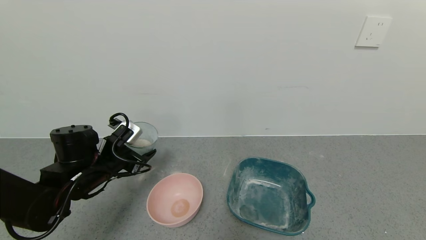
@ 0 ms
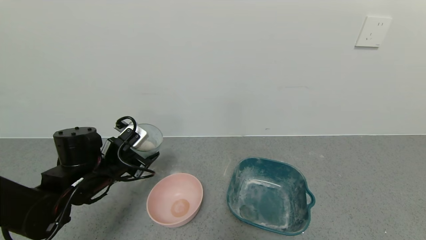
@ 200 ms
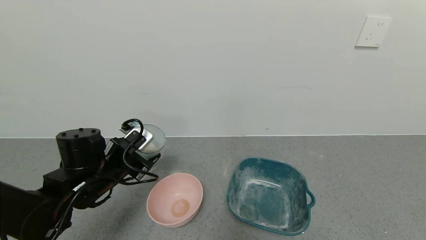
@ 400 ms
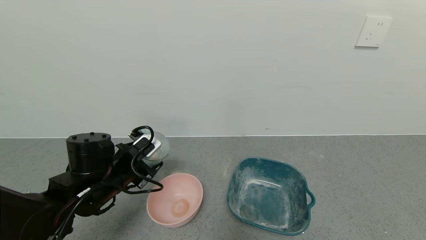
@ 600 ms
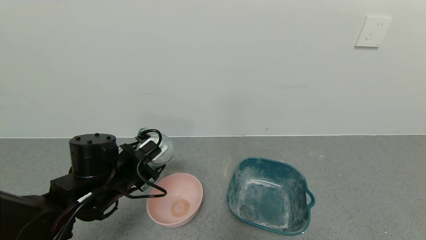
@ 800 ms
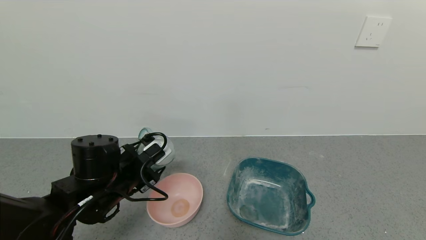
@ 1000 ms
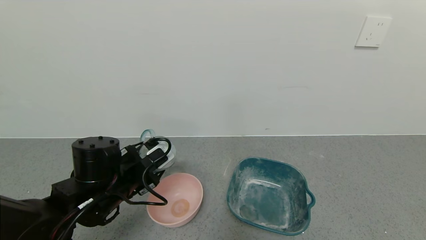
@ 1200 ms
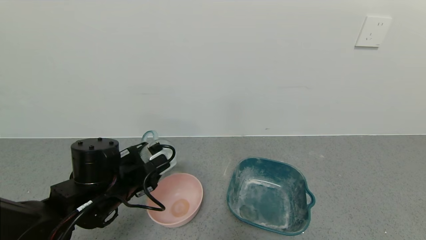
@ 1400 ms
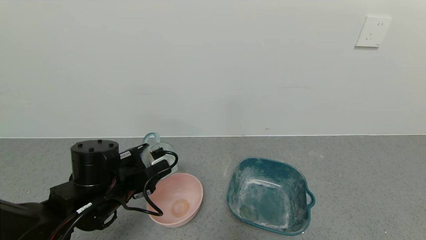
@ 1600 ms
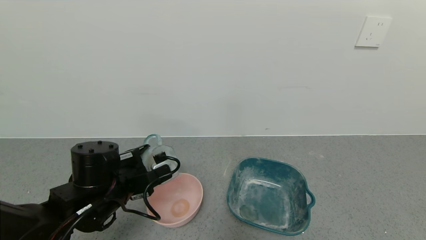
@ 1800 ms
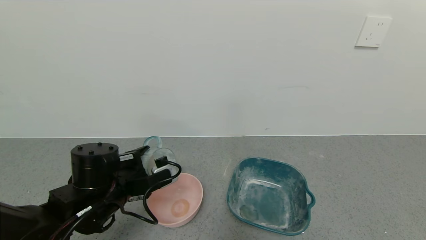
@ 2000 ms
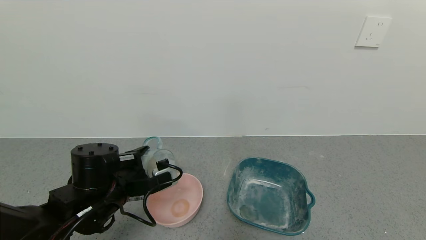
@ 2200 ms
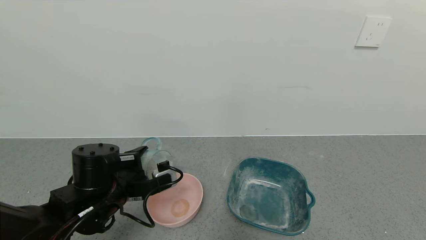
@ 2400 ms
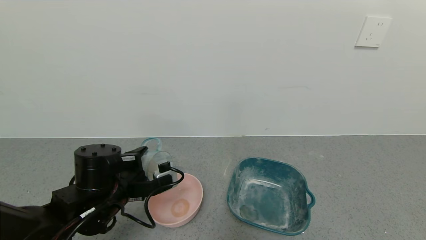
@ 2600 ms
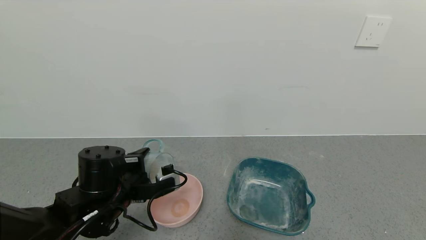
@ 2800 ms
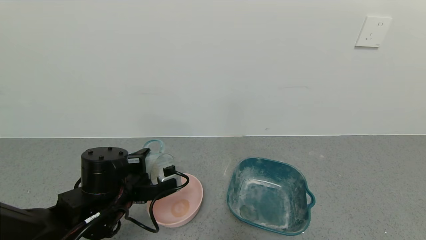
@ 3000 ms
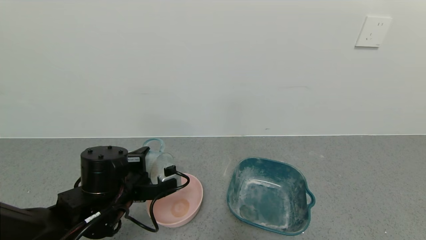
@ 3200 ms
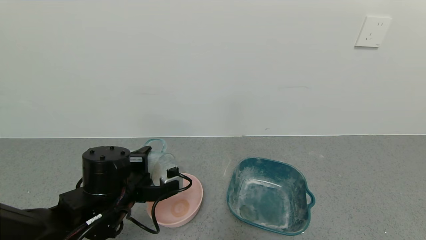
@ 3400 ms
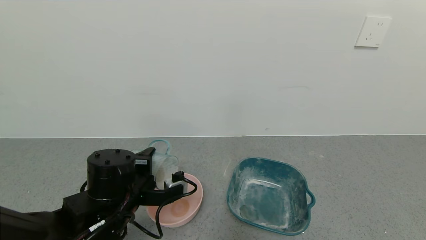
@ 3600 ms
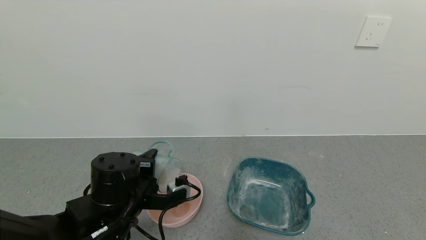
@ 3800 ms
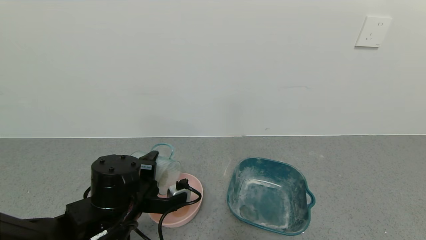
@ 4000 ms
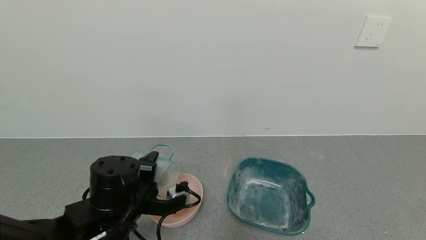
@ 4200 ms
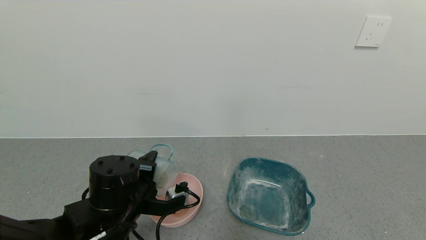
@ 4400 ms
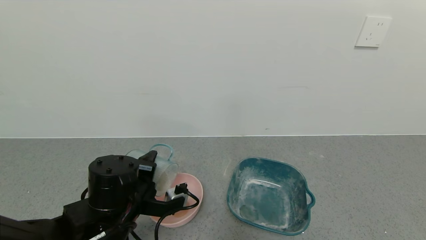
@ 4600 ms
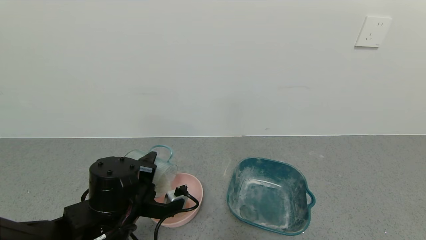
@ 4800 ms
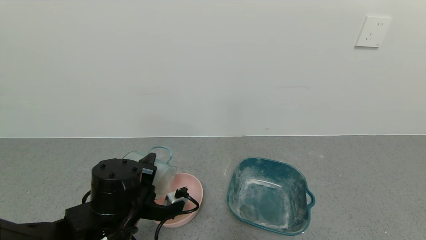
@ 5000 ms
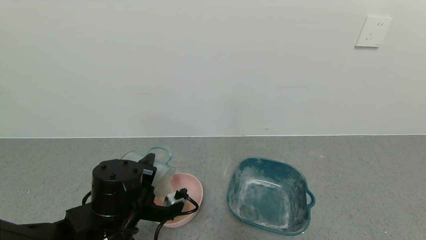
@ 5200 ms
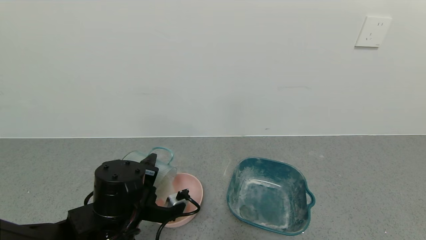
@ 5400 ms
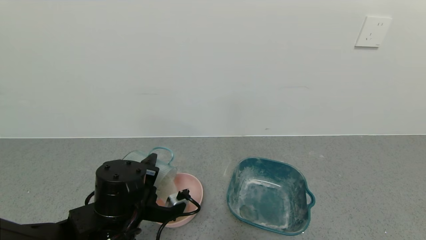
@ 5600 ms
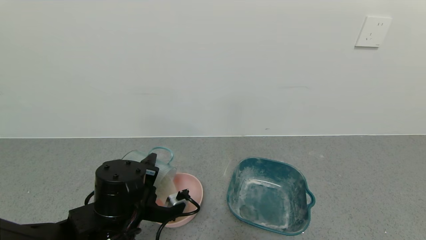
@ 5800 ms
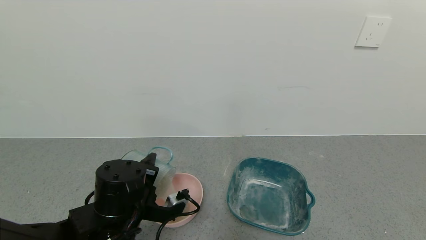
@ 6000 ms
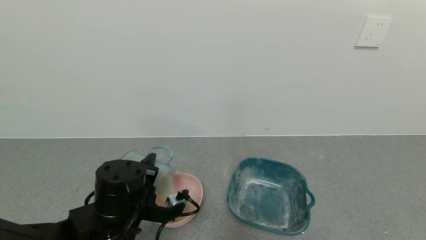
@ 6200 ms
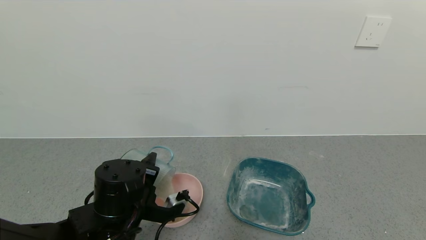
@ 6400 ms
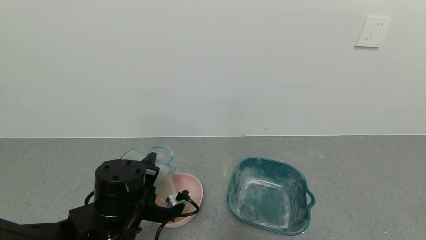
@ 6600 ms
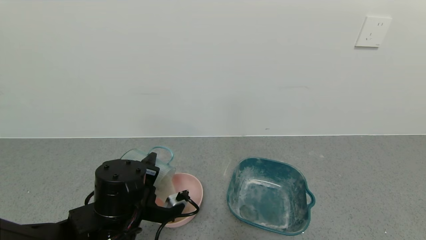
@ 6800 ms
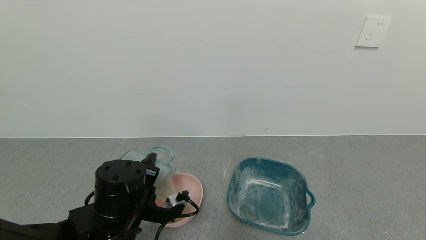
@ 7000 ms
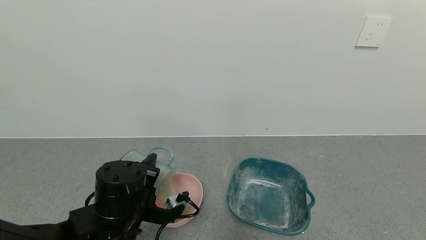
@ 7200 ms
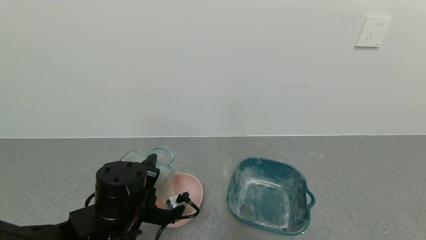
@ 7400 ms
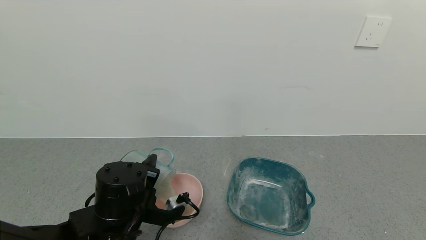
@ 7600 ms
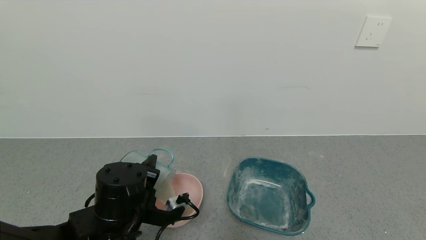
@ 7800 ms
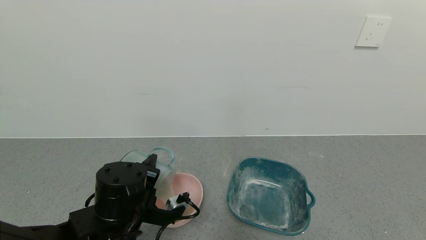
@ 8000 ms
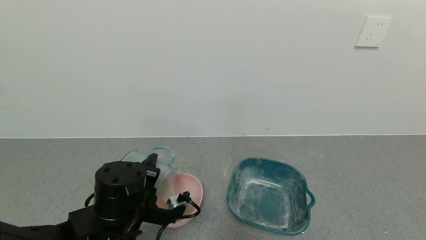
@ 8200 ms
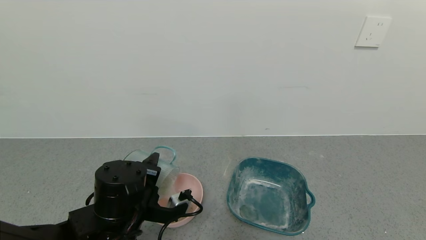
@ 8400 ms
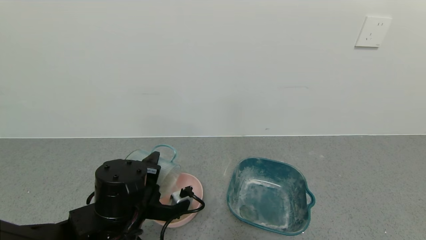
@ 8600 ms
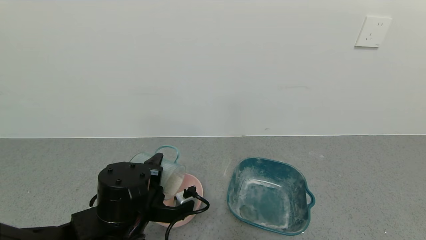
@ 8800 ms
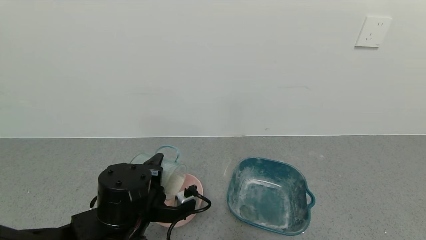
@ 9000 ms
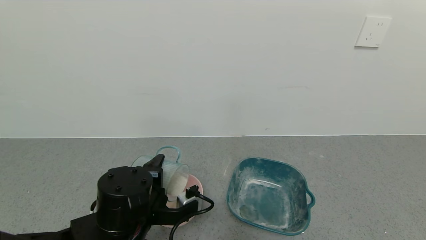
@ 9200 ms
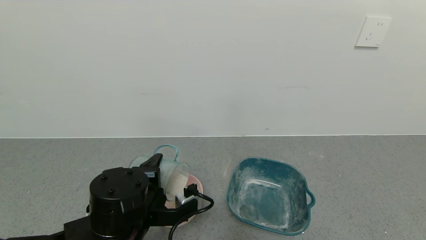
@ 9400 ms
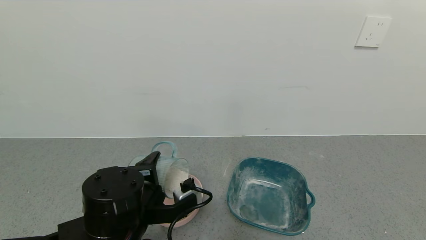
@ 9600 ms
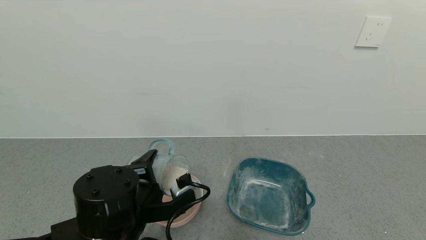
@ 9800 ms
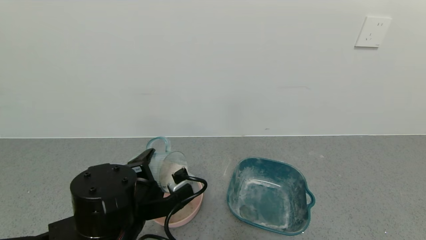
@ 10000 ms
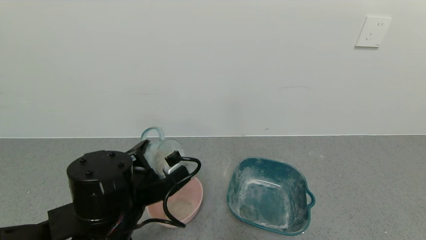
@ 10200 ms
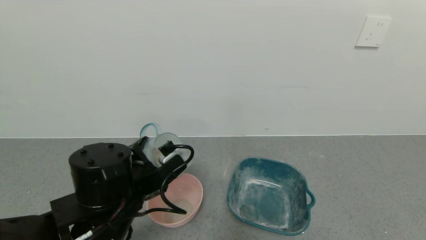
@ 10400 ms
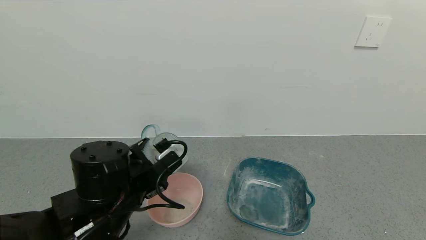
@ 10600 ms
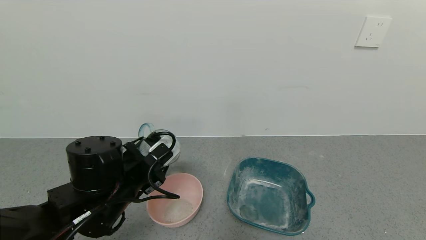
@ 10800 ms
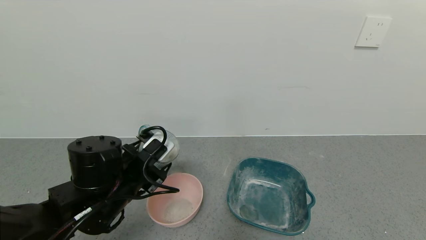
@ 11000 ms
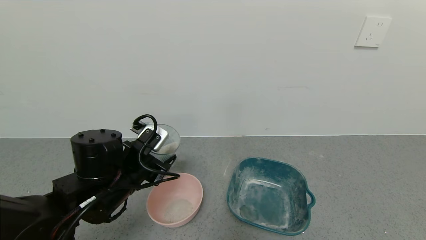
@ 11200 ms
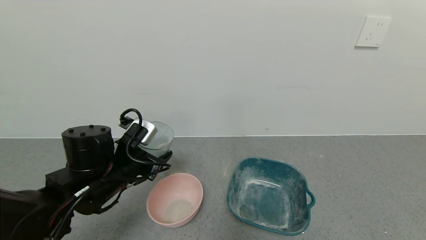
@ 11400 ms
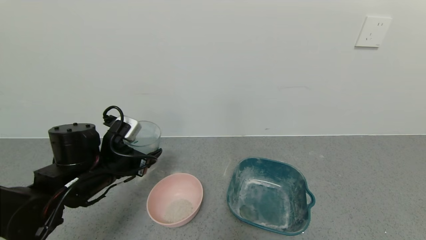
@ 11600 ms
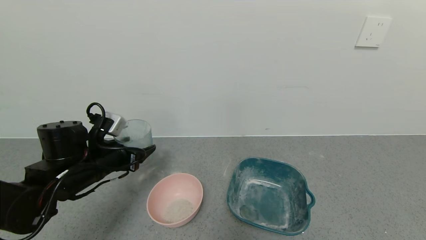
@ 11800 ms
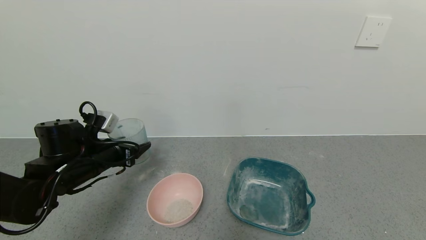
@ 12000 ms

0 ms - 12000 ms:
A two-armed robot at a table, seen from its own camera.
Task of the whole recording: use a gripper to pick up the cup and pour the powder into a bowl or tray.
Step, 0 ms - 8600 ms: Pour the powder into the pink bowl with the left gripper.
0 ms - 1600 ms: The left gripper travels to the right and backward by about 10 cm.
3000 ms - 4400 ms: The grippers make only small movements.
4400 ms - 6000 ms: The grippers make only small movements.
6000 ms - 7600 ms: The two grippers keep their place.
7600 ms - 9000 ms: The grippers move only a little.
10400 ms - 12000 ms: The left gripper goes some 15 cm to the left and forward.

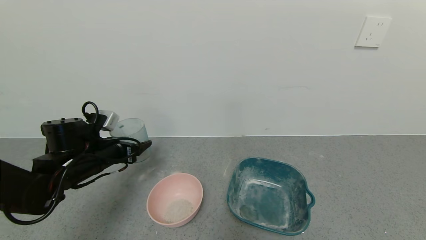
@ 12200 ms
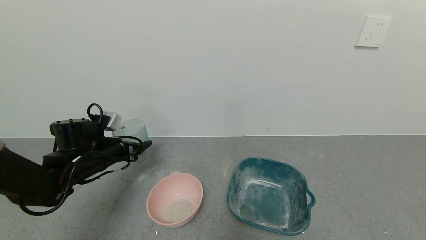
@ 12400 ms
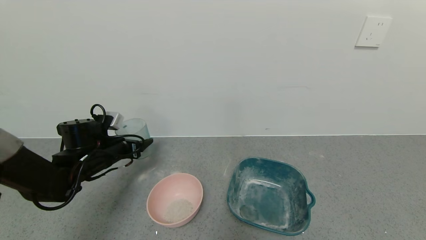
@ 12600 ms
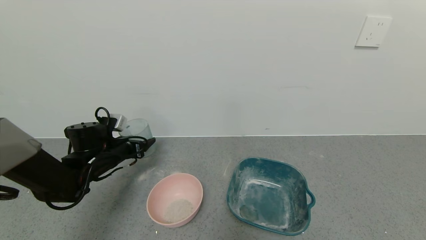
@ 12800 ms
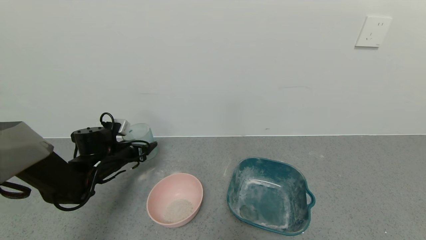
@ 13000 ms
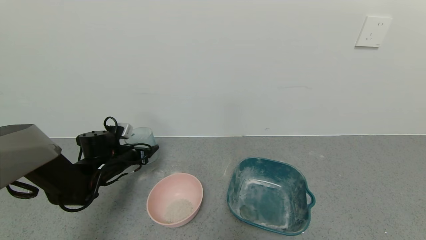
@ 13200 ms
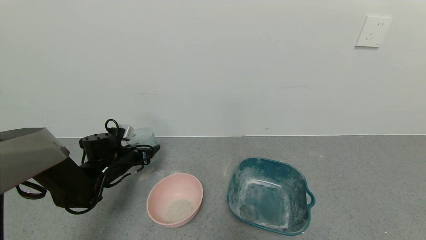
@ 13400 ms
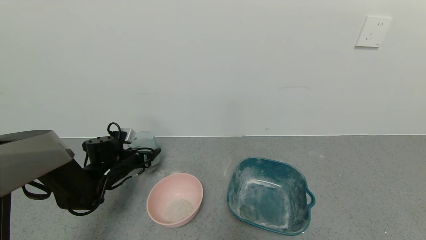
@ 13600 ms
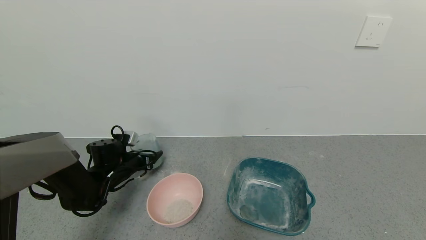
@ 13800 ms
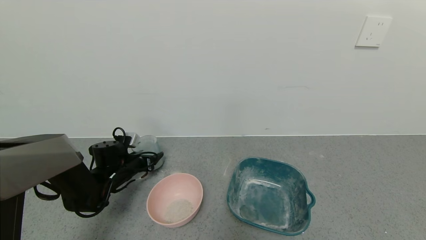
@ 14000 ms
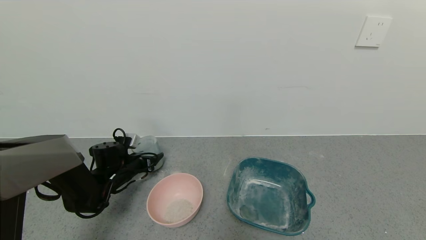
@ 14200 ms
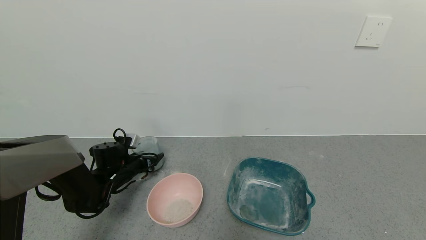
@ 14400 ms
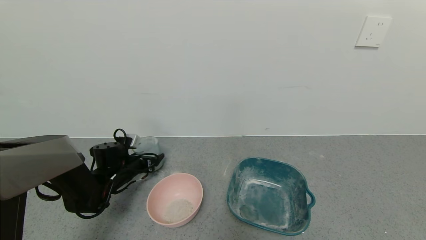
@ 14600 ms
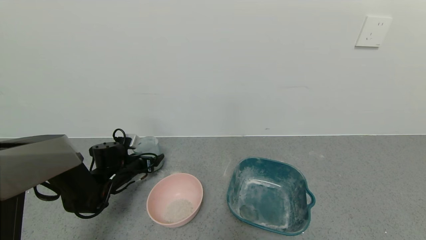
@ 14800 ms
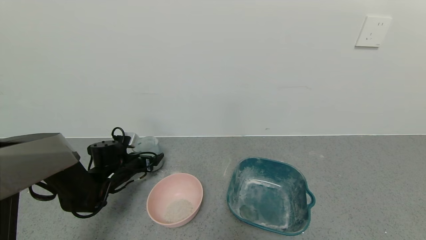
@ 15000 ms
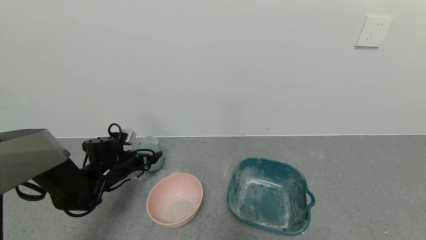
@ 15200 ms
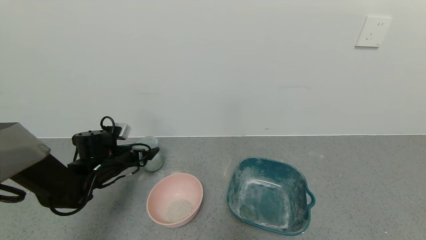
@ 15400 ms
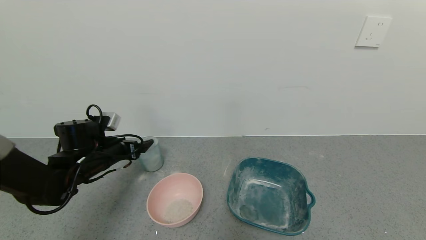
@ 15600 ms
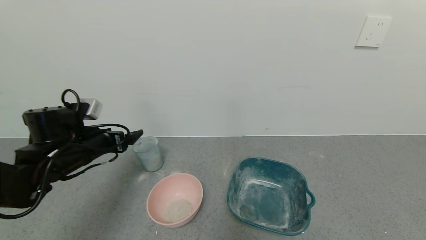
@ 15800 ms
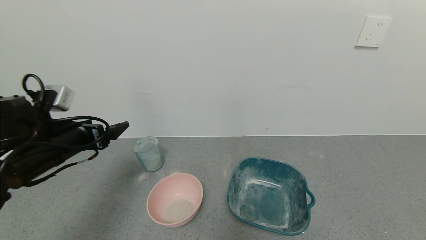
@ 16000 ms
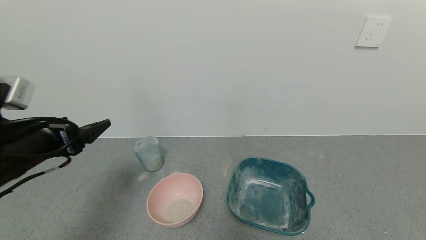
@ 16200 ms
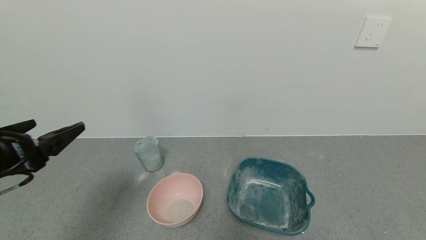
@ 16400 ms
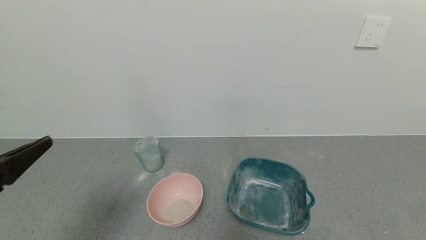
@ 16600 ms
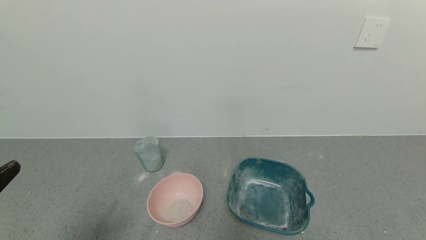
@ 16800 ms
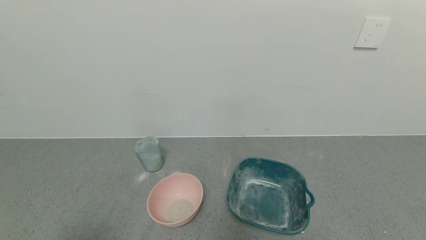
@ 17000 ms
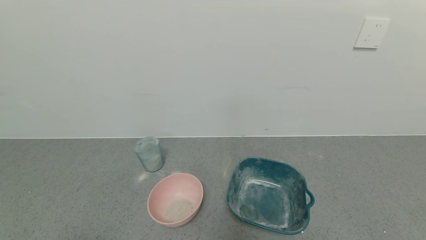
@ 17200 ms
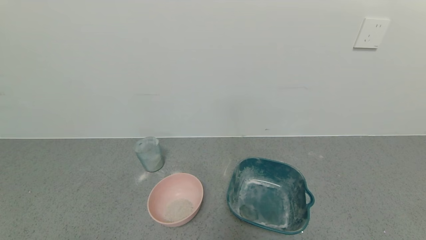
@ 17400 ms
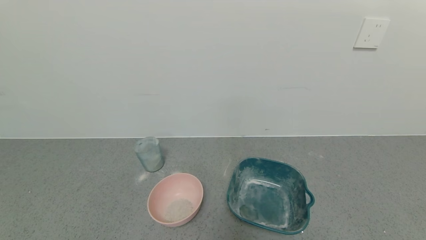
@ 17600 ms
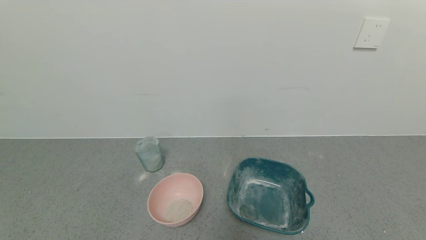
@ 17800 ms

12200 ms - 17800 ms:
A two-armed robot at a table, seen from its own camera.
Task of the whole recording: use a gripper to pick up the cup and pour the powder into a bowl or tray.
Step, 12200 ms - 15600 ms: Place the glass cup down with the left gripper.
12200 ms - 13600 ms: The left gripper travels downward and forward by approximately 10 cm.
13600 ms - 15000 ms: The left gripper opens its fingers.
15000 ms - 16400 ms: The left gripper is displaced backward and upward by roughly 30 cm.
16400 ms - 17800 ms: The left gripper shifts some 20 cm backward and downward.
